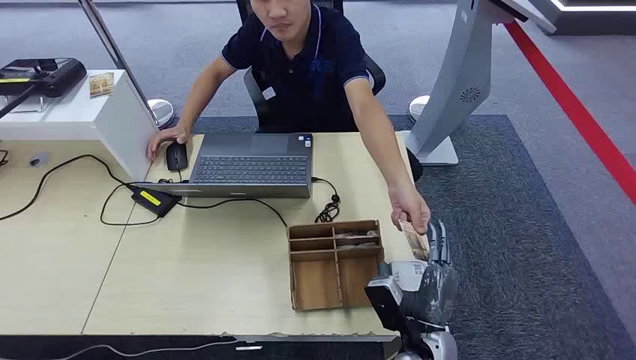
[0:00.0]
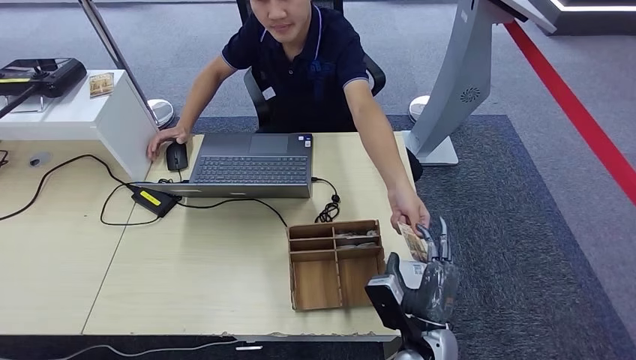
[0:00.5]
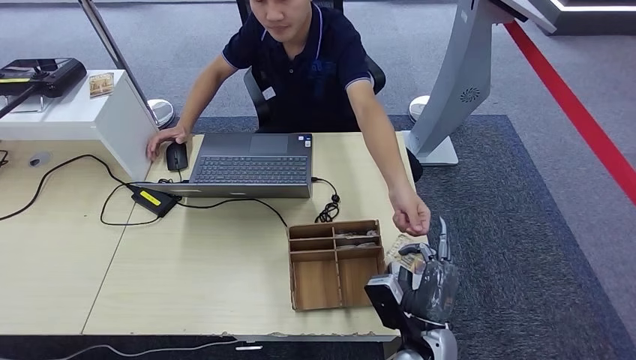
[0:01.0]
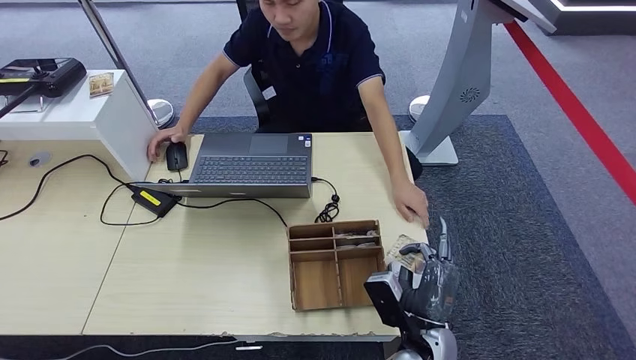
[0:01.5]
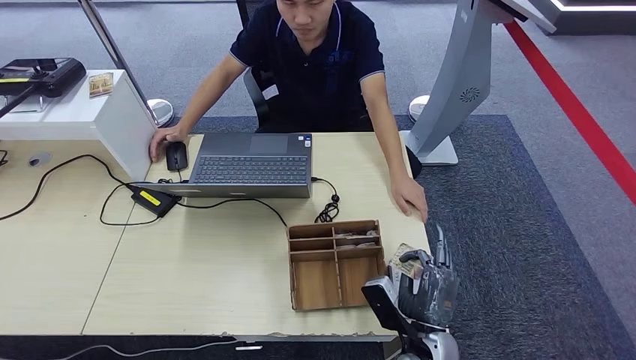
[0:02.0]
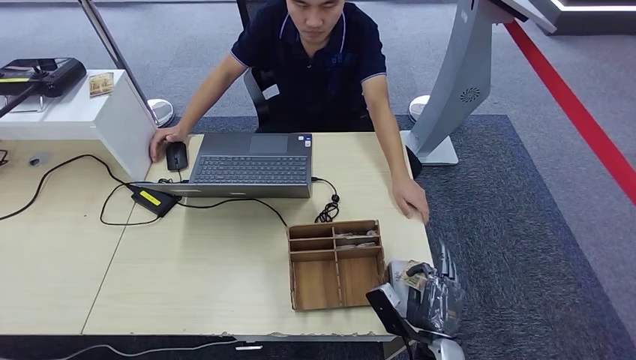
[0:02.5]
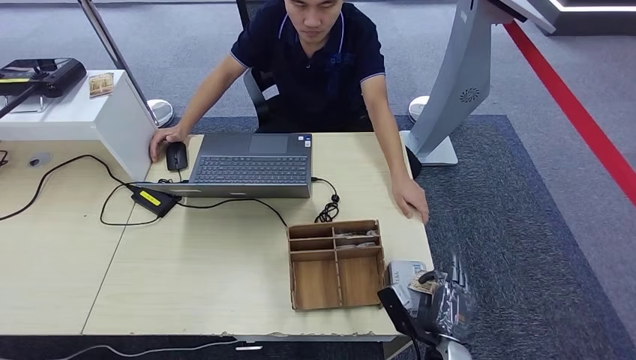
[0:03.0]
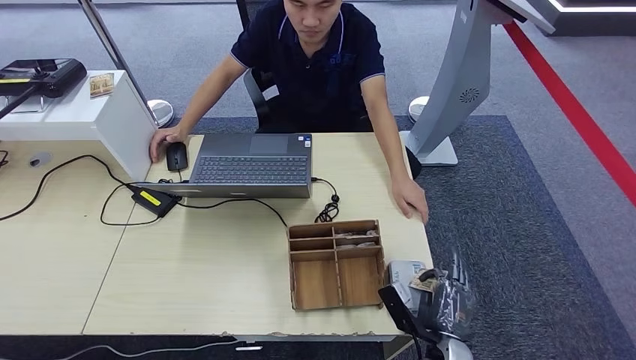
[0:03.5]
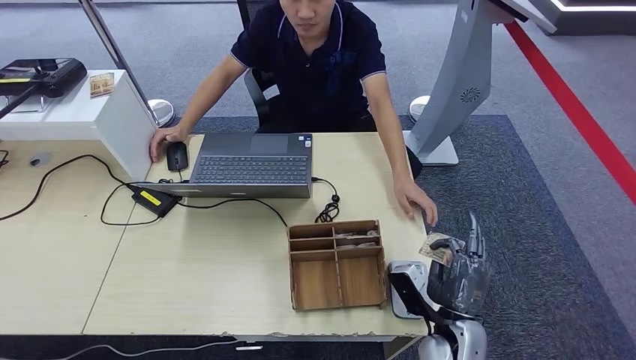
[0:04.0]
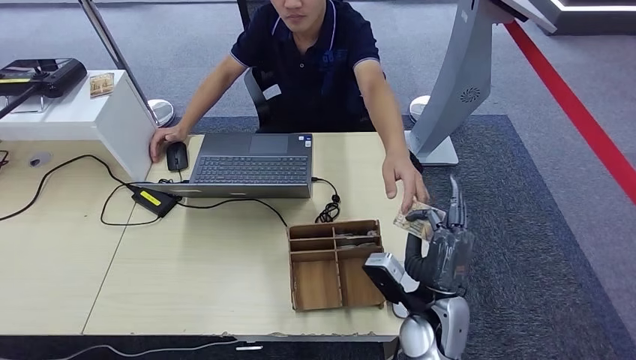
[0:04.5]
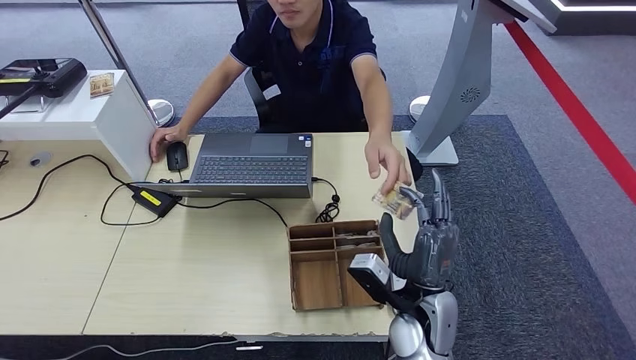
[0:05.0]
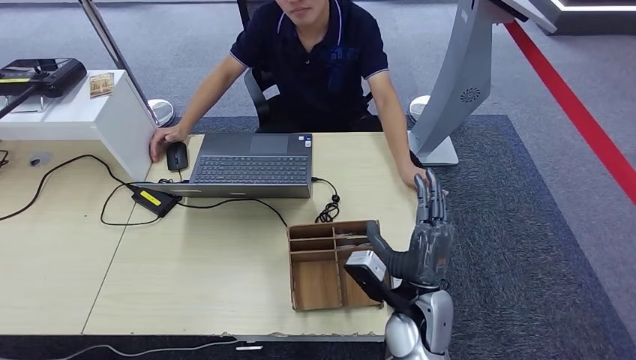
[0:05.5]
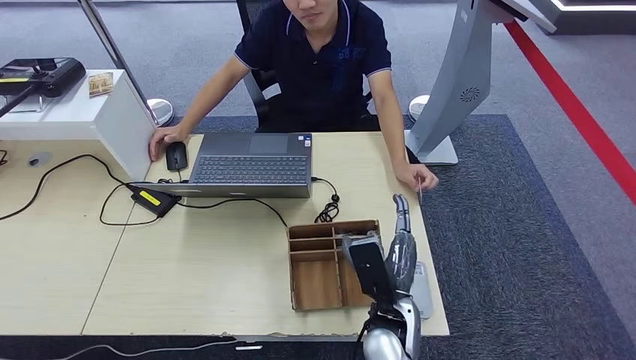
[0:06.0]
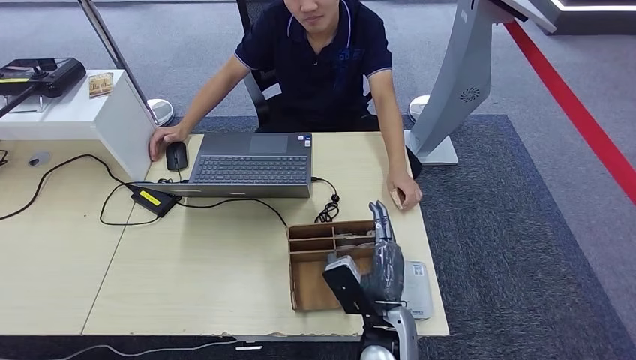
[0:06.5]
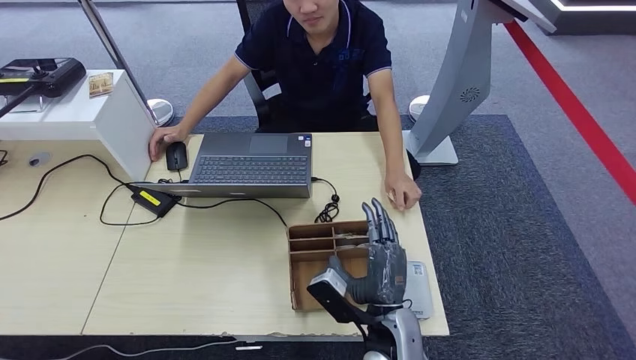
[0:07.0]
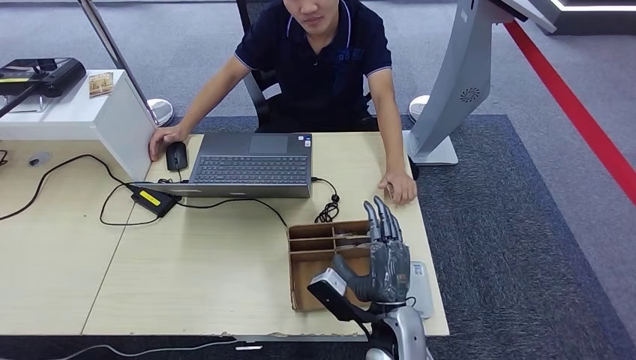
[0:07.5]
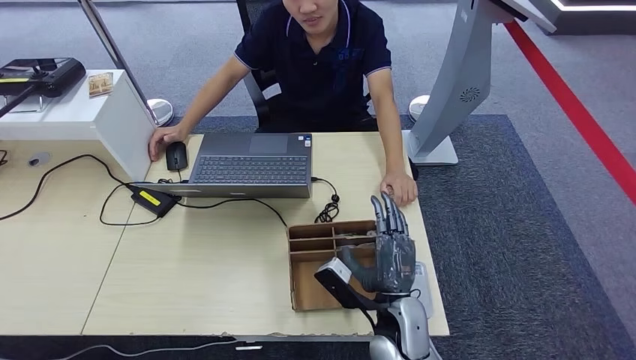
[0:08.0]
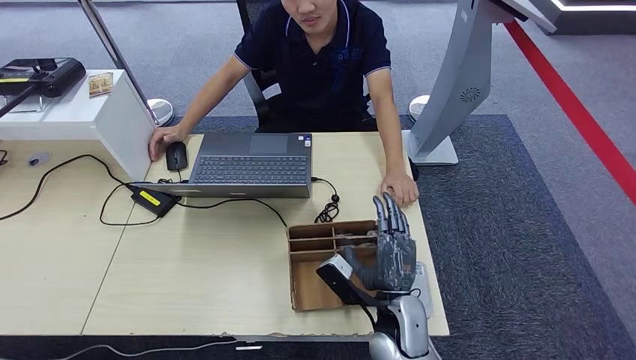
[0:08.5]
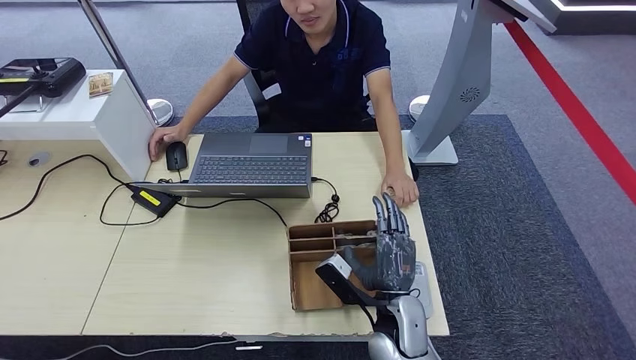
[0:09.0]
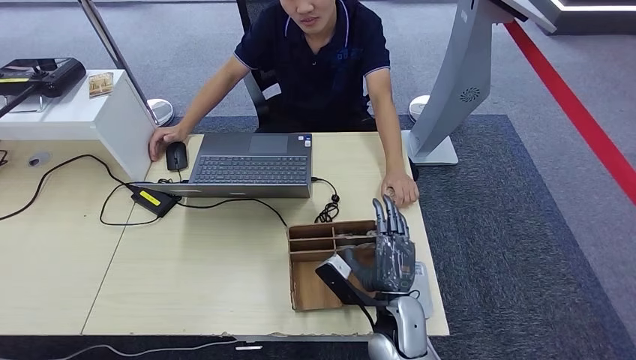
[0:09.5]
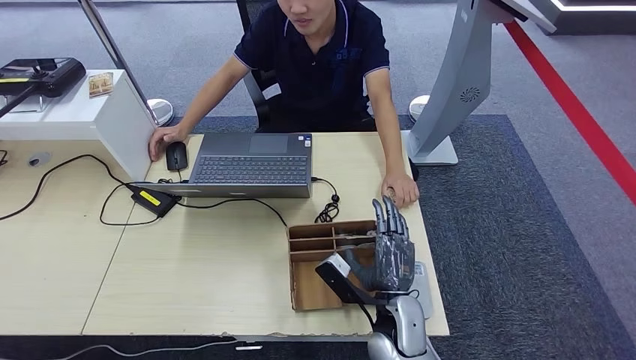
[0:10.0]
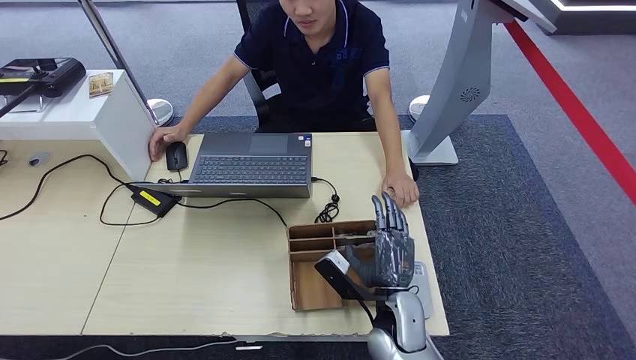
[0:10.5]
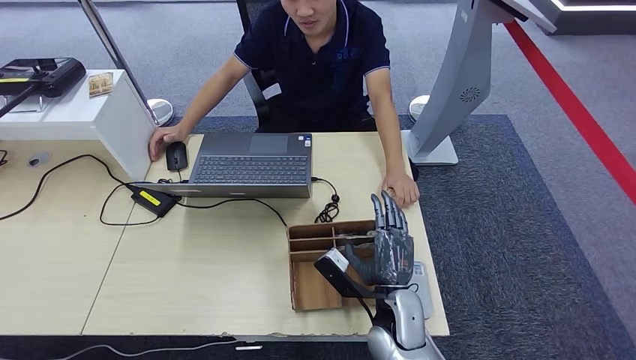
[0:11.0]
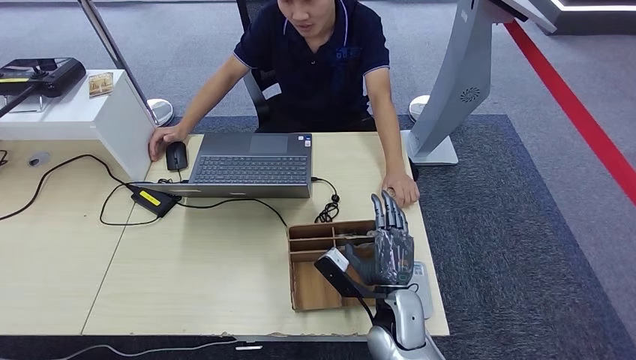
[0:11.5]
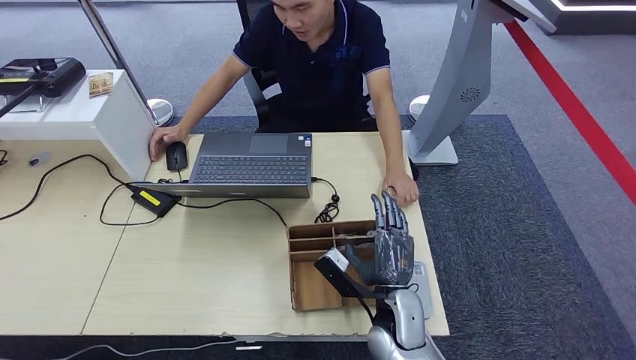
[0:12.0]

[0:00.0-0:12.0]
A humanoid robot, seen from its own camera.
Step, 0:00.0 to 0:01.0: Take the ID card from the person's hand.
Step, 0:01.5 to 0:03.5: Place the ID card on the card reader.
Step, 0:04.0 to 0:05.0: Hand the ID card to the person.
0:02.0 to 0:04.0: The right hand ends up roughly 5 cm from where it was.
0:04.0 to 0:06.0: The right hand heads to the left and upward, covering roughly 10 cm.
0:08.0 to 0:10.0: The hands move only a little.
0:10.0 to 0:12.0: Both hands stay put.

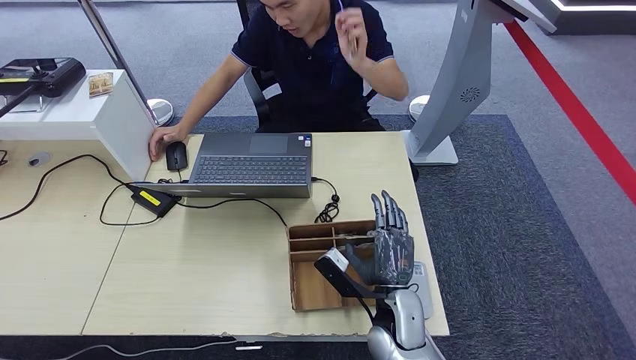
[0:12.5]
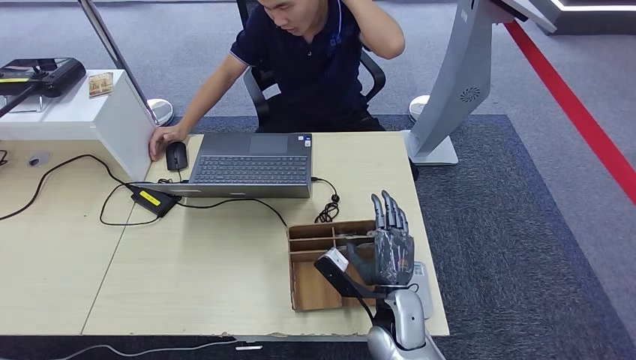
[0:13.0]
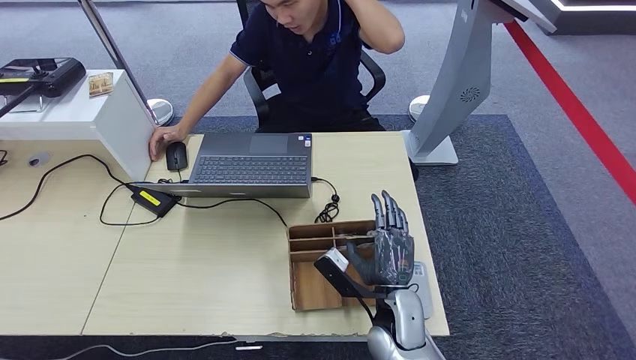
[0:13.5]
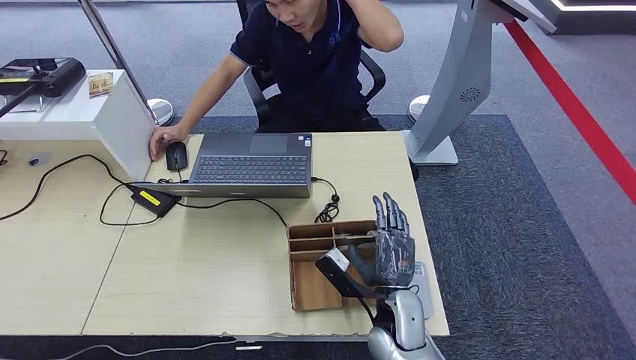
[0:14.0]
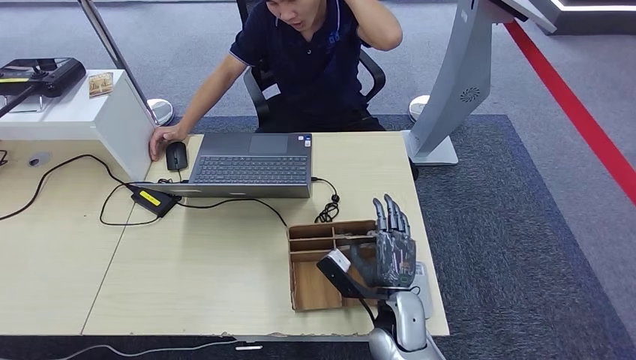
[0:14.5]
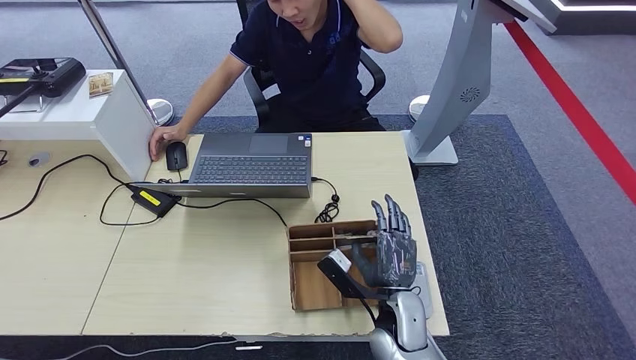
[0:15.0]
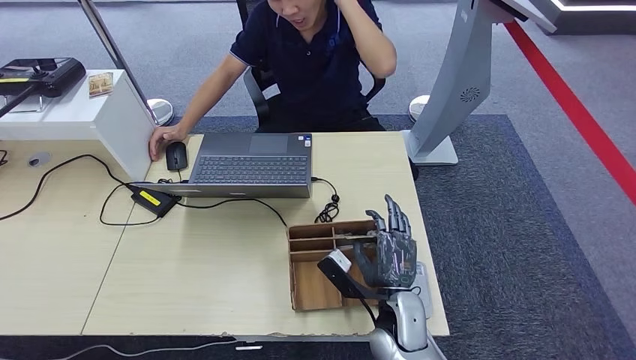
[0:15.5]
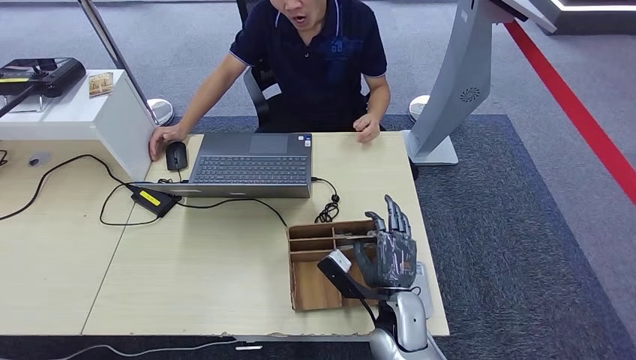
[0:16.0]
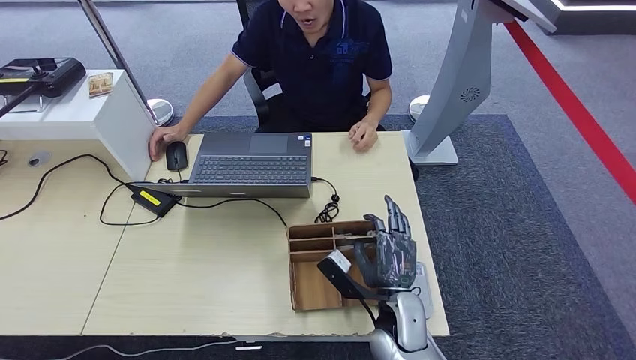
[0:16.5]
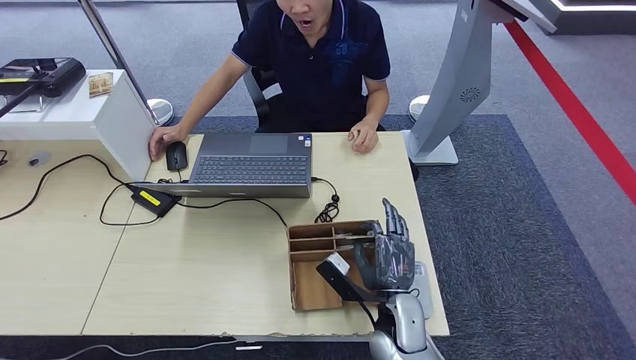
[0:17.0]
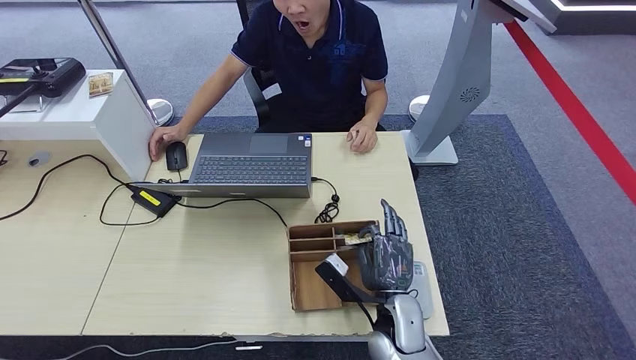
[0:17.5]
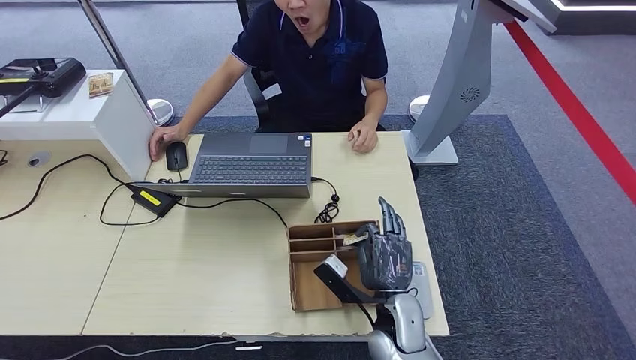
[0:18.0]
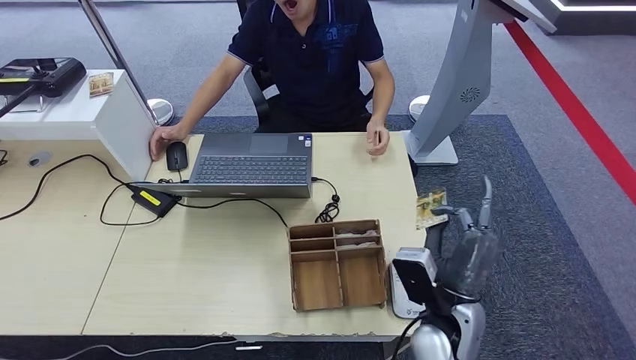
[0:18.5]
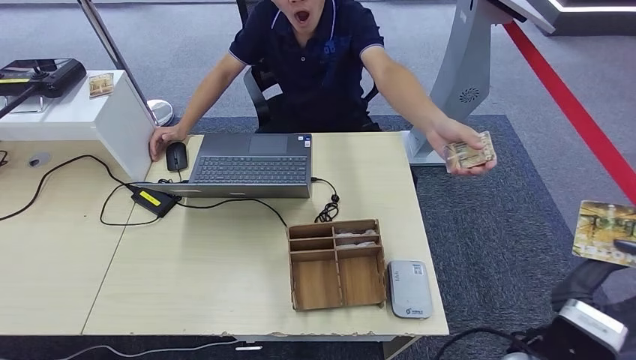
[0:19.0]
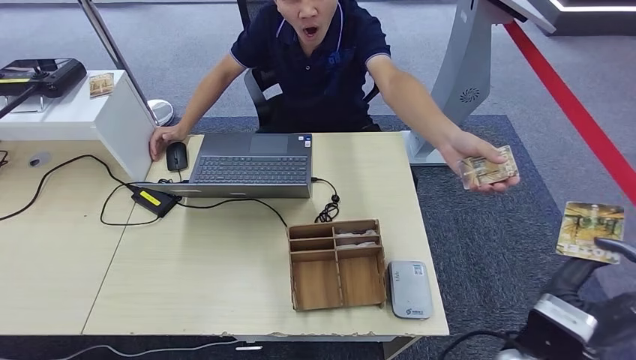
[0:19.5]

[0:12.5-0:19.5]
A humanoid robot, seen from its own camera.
Step, 0:12.5 to 0:18.5: Pick up the room key from the key card box.
Step, 0:19.0 to 0:19.5: Hand the room key to the person.
0:12.5 to 0:16.0: Both hands stay put.
0:16.0 to 0:17.5: The two hands keep their place.
0:17.5 to 0:19.5: The right hand moves to the right, upward and backward, about 20 cm.

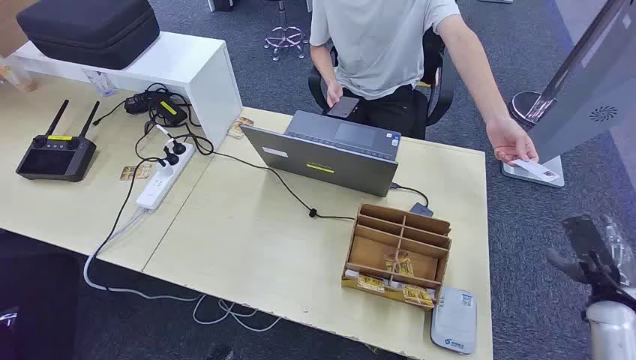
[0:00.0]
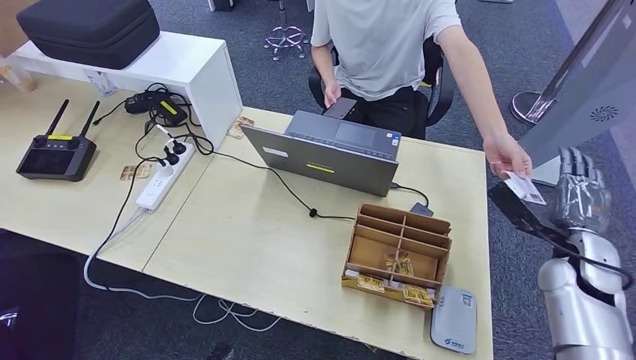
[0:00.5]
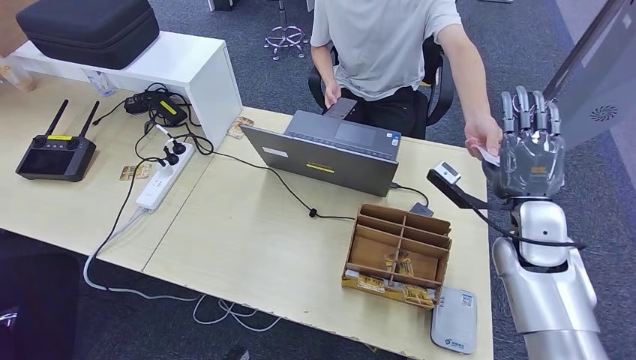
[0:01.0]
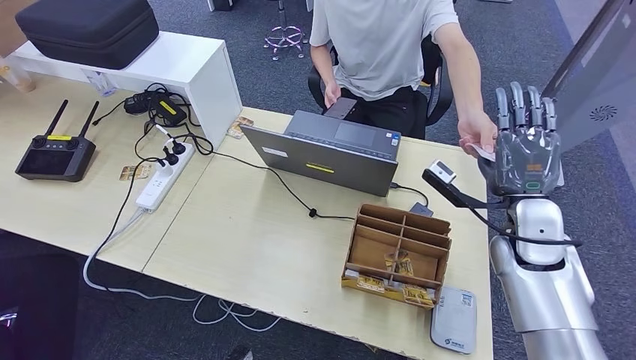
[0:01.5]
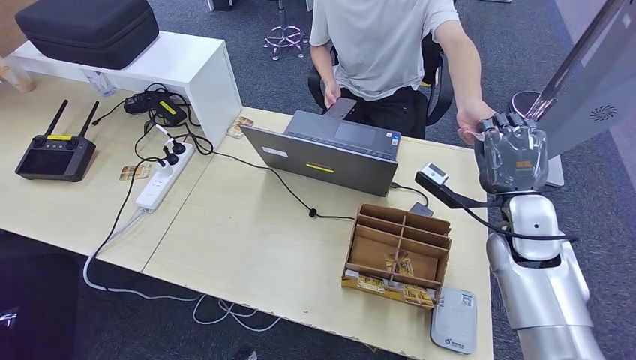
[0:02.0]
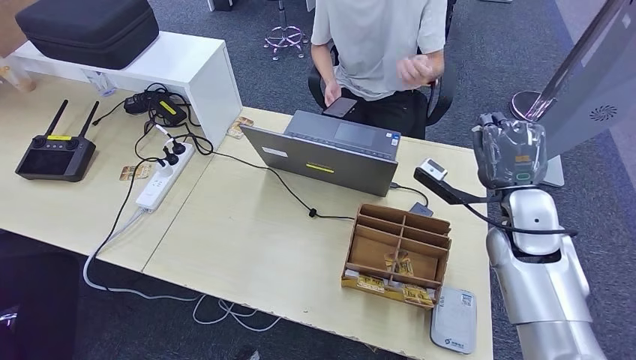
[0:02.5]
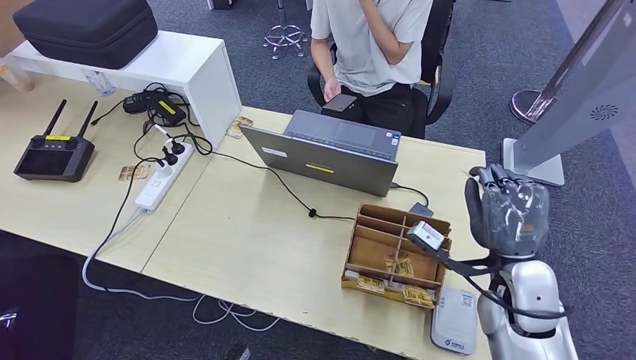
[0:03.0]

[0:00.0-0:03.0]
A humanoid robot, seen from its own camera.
Step, 0:00.0 to 0:02.5: Take the ID card from the person's hand.
0:01.5 to 0:03.0: The right hand goes some 10 cm backward.
